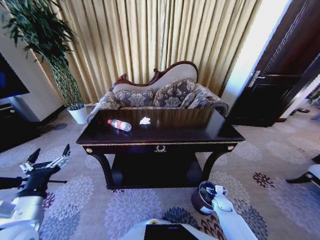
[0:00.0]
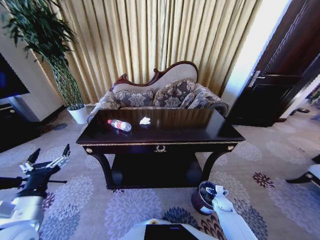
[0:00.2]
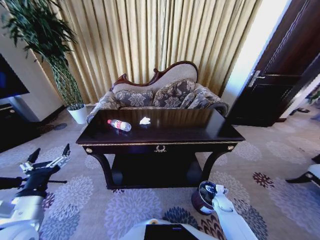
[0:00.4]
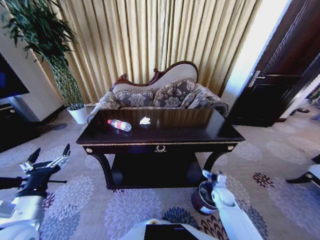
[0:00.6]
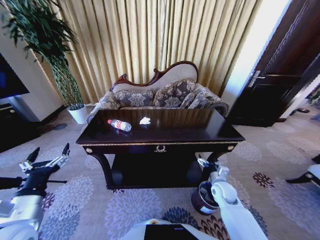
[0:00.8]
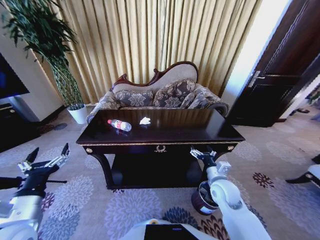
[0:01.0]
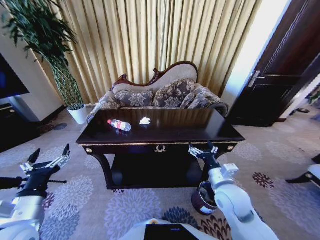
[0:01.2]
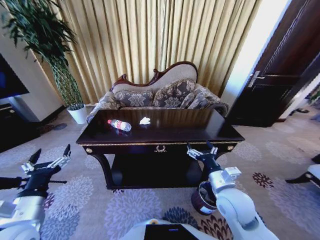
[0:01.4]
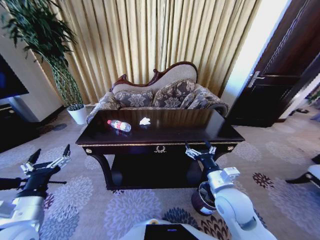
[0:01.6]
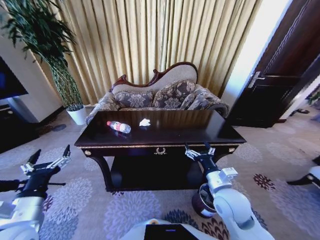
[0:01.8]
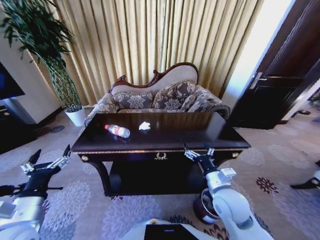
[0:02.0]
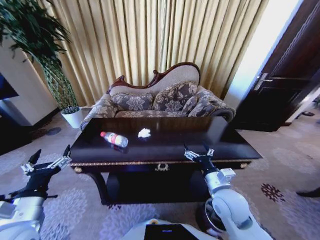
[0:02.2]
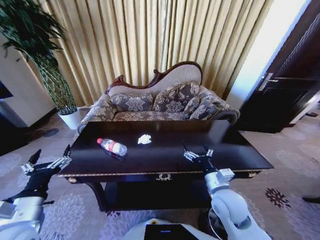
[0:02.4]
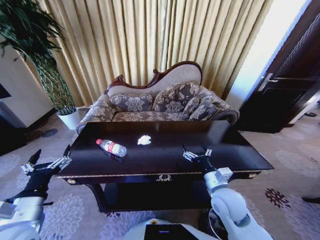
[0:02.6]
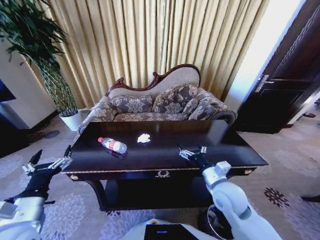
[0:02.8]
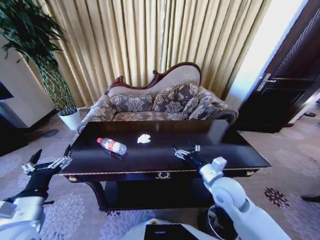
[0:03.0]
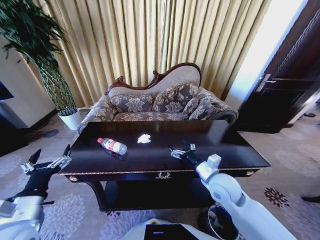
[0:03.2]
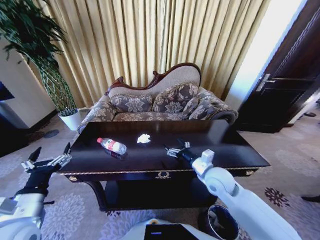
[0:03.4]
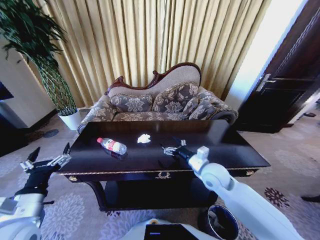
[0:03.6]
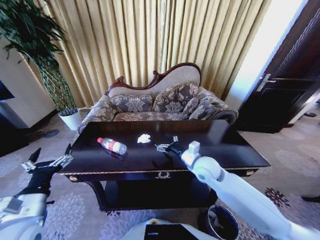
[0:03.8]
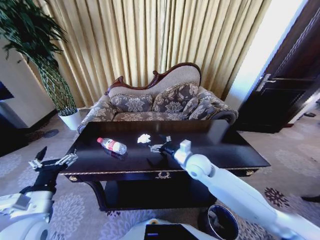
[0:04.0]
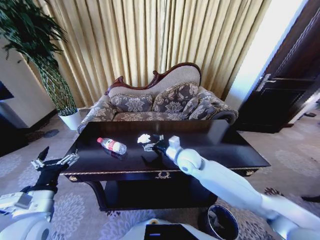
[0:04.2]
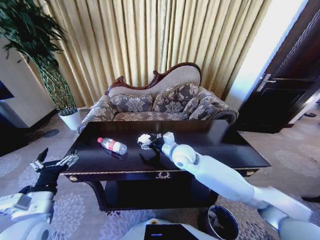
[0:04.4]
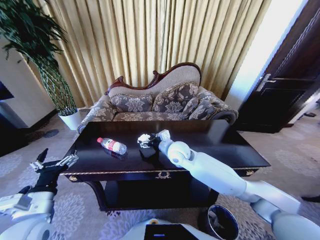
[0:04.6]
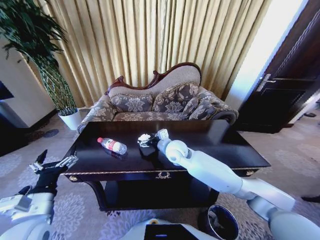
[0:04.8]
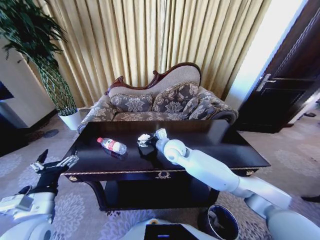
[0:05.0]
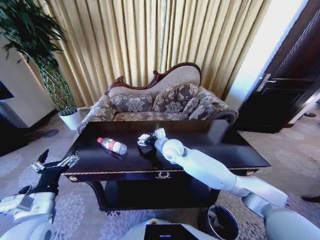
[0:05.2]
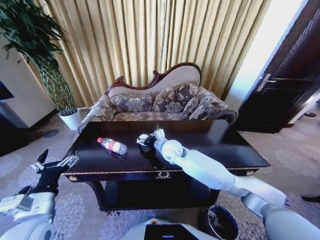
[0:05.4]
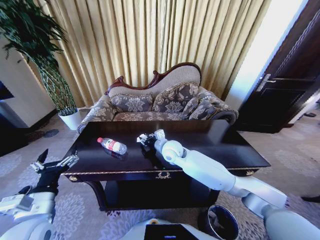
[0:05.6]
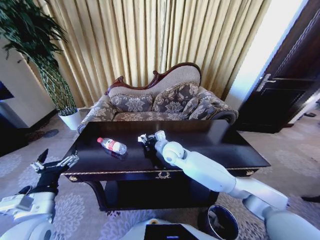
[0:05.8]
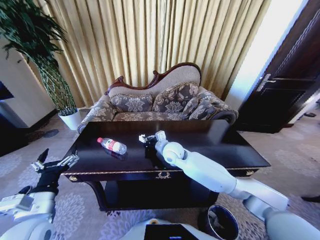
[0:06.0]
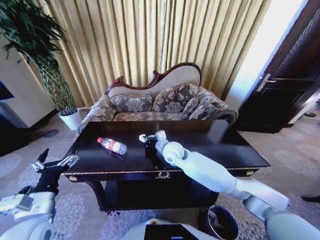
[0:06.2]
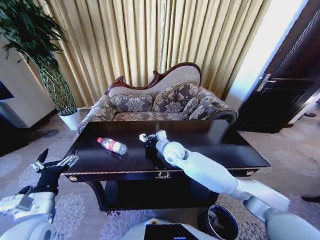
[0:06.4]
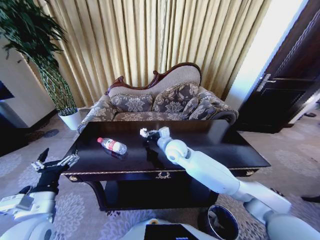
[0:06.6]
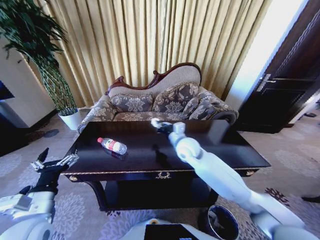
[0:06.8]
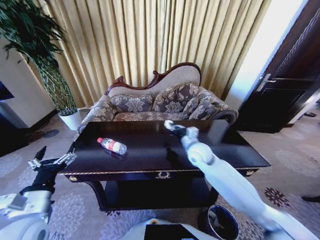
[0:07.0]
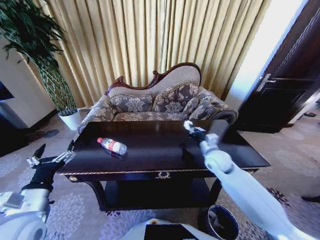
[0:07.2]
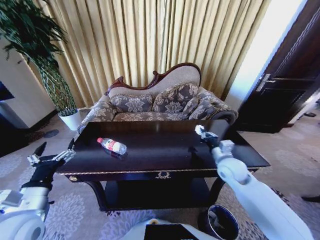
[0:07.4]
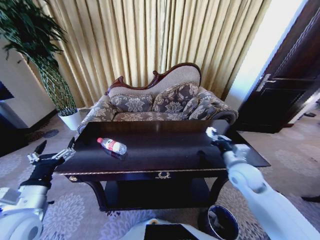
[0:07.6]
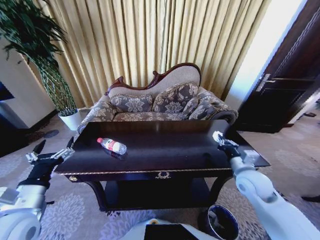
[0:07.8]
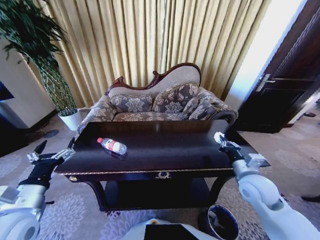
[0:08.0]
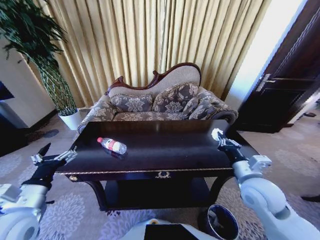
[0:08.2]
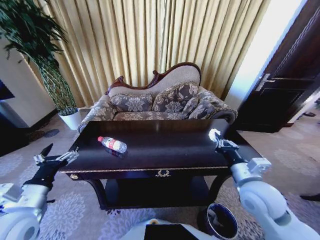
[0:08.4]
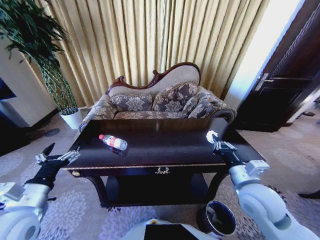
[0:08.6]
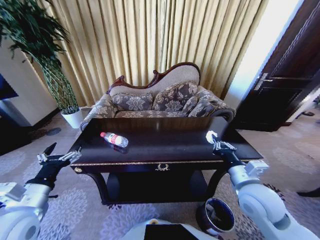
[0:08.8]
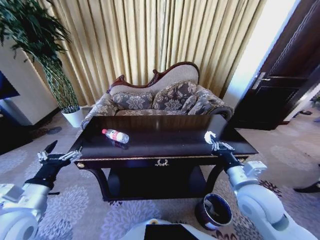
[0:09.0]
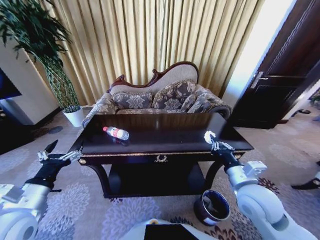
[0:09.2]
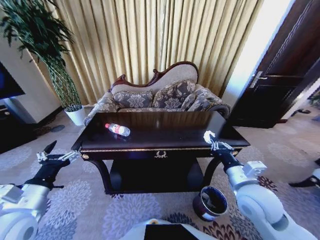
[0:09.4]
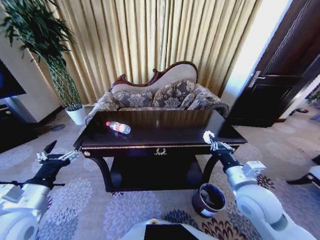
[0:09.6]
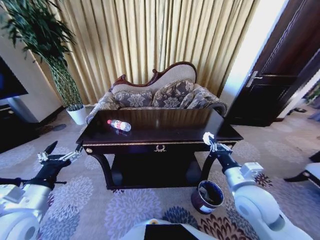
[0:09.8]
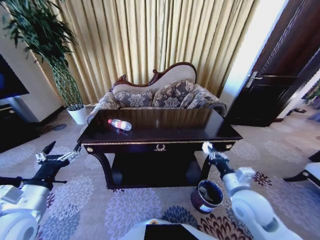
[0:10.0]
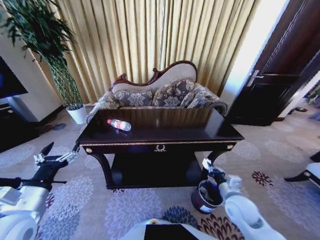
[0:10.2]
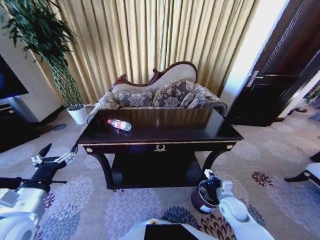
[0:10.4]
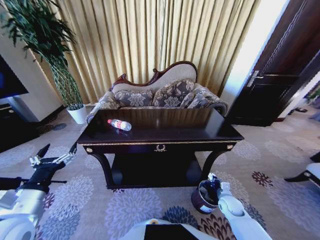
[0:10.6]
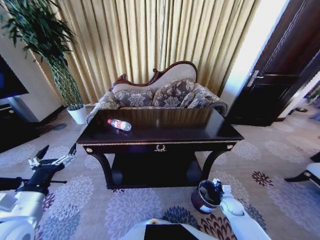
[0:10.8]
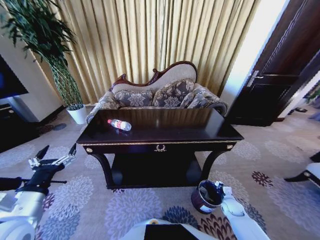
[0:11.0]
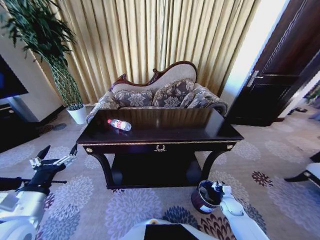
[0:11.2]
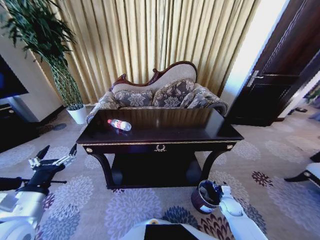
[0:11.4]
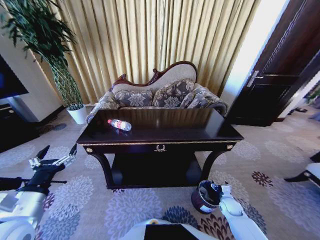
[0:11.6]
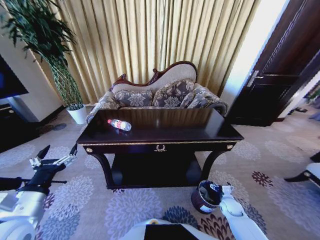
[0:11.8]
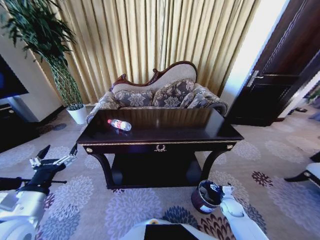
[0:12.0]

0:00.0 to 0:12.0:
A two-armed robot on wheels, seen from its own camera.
Task of the whole recording: Move to the front of the table and place the trash on the table into the trash bin.
0:00.0 to 0:01.6: The right gripper shifts roughly 35 cm upward and to the left.
0:03.0 to 0:04.4: The right gripper moves forward and to the left, some 20 cm.
0:04.4 to 0:06.0: The right gripper changes place by approximately 5 cm, and closes up.
0:06.0 to 0:07.6: The right gripper shifts some 30 cm to the right and backward.
0:07.6 to 0:09.0: The right gripper goes roughly 10 cm backward.
0:09.0 to 0:10.4: The right gripper heads downward, covering roughly 25 cm.
0:10.4 to 0:12.0: The right gripper goes roughly 10 cm downward and to the right, and opens up.

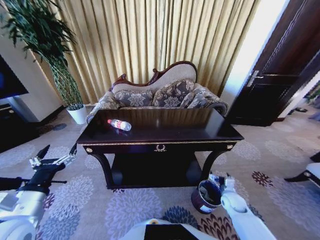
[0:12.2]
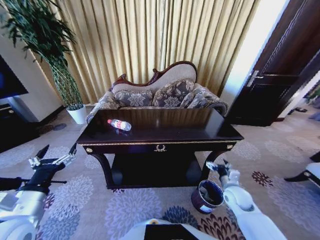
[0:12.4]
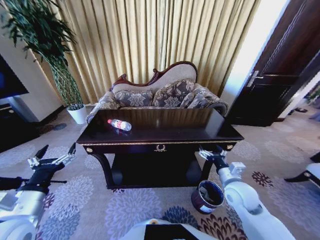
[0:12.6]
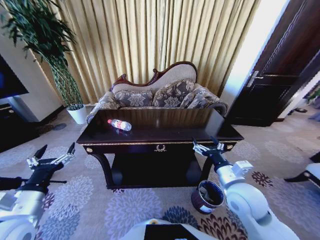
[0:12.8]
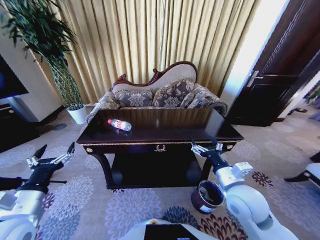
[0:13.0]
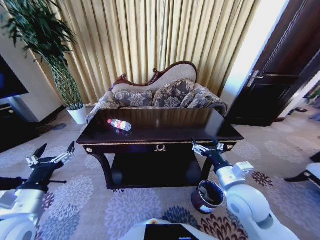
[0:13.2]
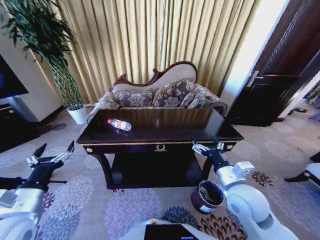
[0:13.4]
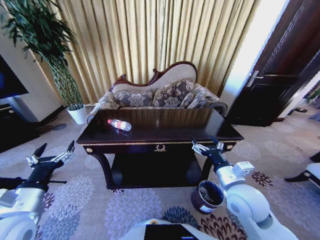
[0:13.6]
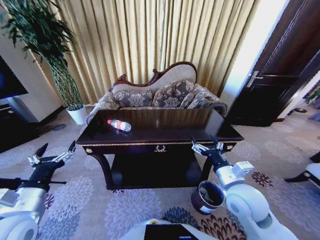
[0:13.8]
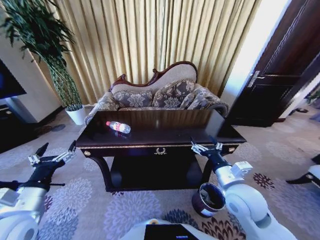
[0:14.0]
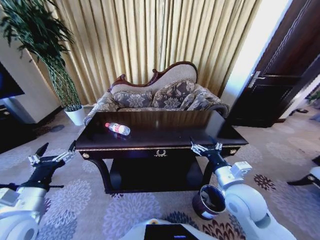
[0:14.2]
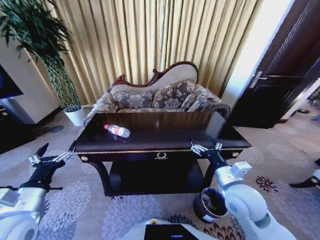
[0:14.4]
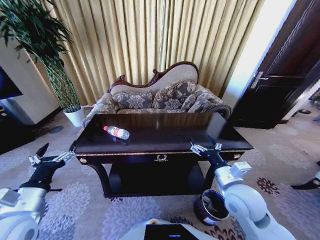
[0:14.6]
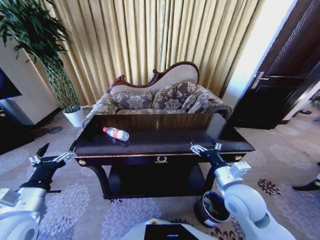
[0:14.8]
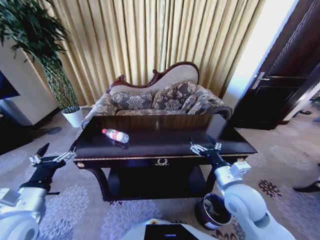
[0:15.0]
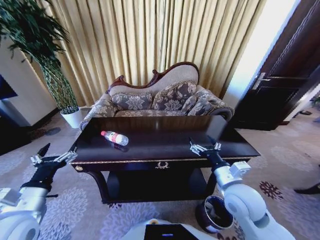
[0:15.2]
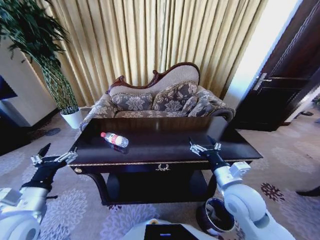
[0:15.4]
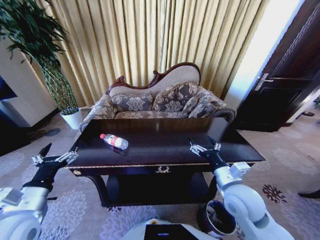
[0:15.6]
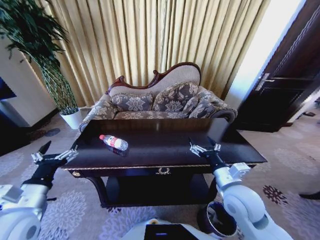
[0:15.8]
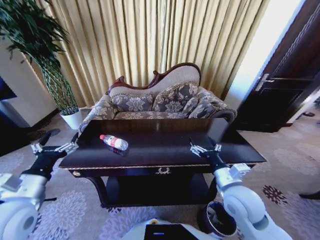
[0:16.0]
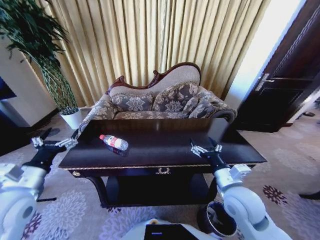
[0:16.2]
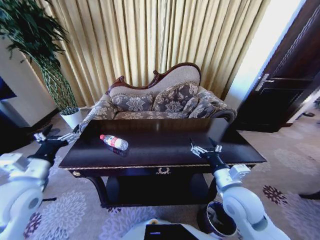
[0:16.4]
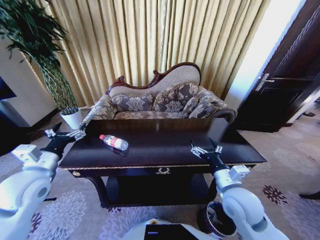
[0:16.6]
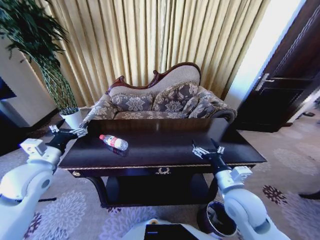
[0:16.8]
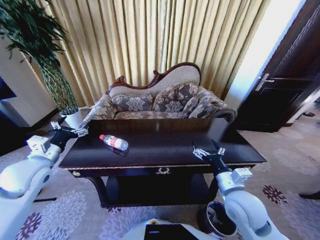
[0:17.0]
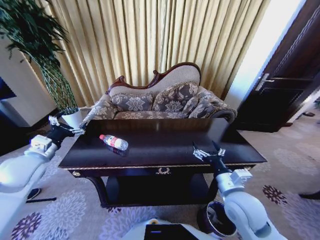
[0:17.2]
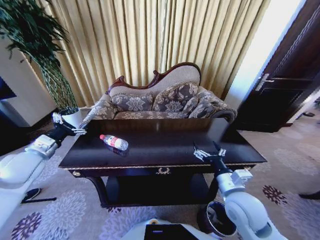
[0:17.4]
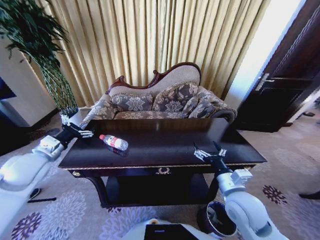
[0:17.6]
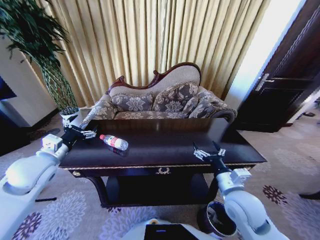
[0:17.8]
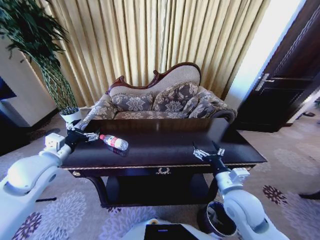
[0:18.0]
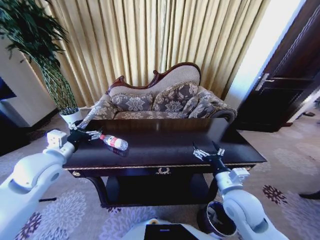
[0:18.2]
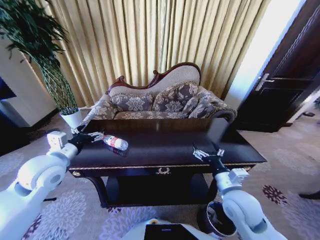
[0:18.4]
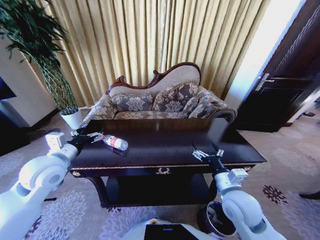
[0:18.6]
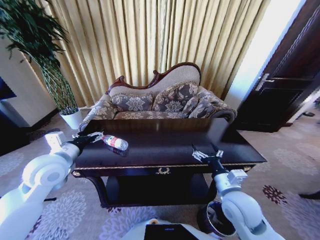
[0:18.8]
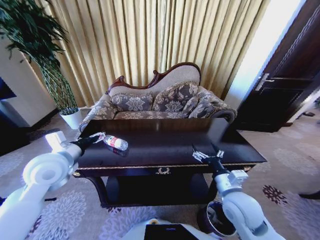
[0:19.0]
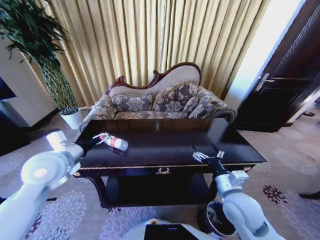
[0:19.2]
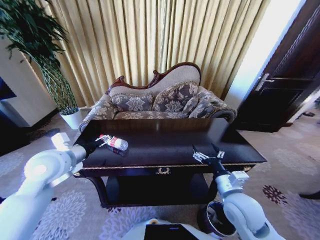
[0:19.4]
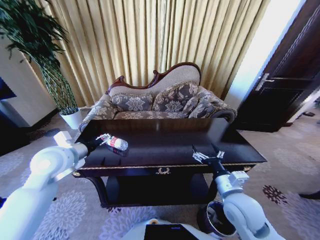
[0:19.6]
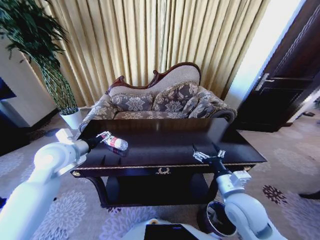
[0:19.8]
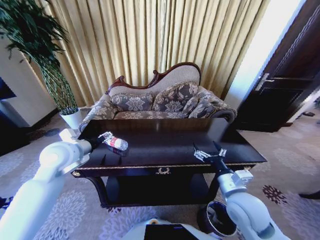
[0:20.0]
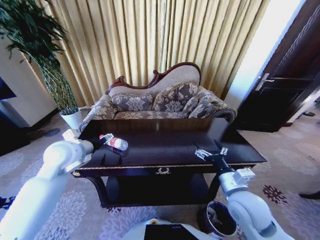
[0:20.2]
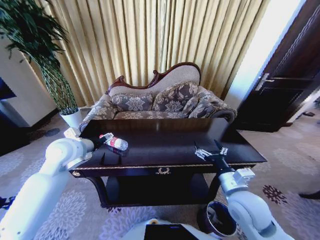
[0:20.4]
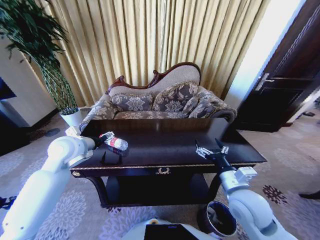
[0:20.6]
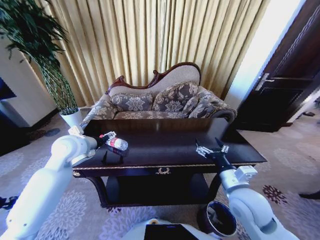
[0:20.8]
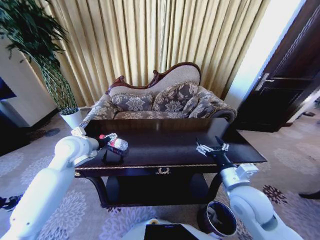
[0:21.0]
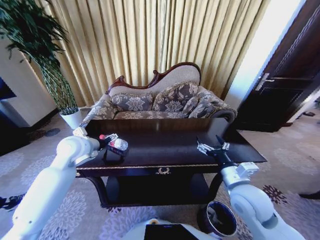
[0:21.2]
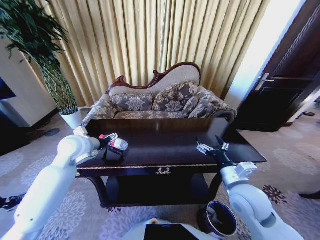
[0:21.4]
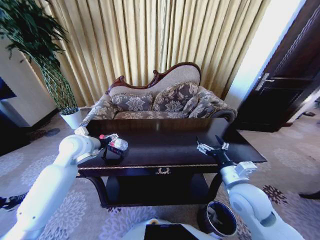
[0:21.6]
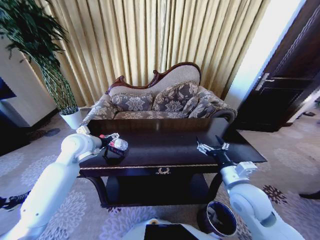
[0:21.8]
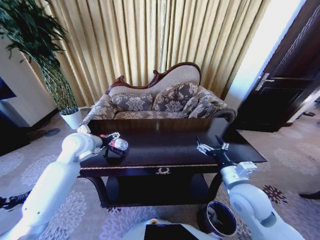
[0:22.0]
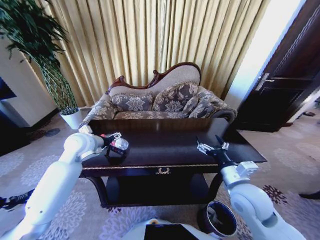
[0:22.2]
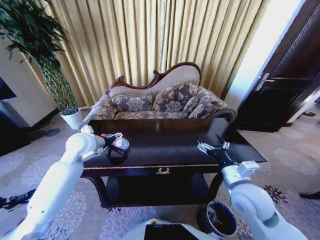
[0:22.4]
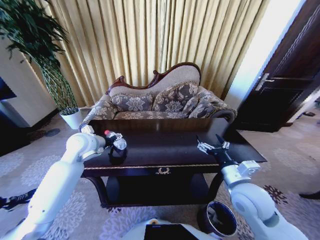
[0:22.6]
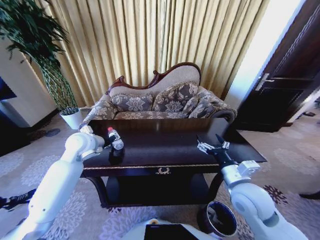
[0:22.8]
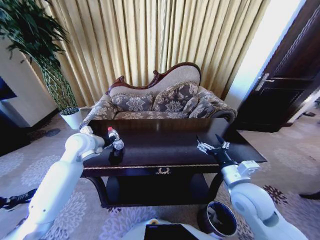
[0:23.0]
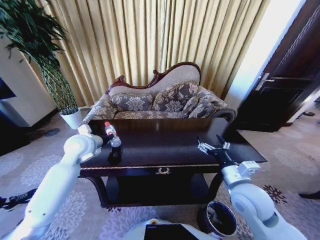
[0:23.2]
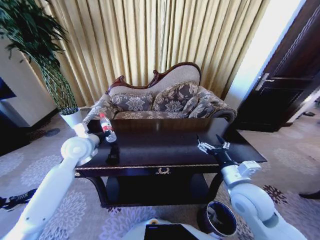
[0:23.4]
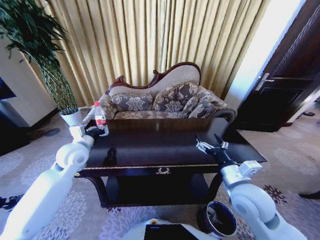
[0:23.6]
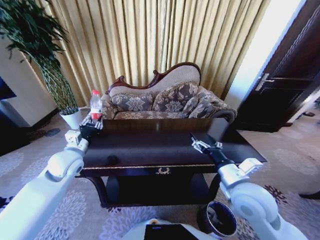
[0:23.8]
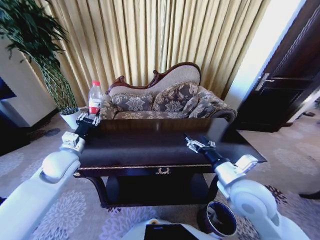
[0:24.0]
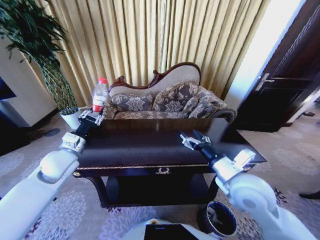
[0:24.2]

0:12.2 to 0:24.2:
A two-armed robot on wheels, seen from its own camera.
Task of the whole recording: Move to the front of the table and place the trash on the table into the trash bin.
0:12.2 to 0:13.8: The right gripper heads upward and to the left, covering approximately 30 cm.
0:15.2 to 0:16.6: The left gripper travels forward by approximately 10 cm.
0:16.6 to 0:18.2: The left gripper reaches approximately 5 cm to the left, then returns.
0:19.8 to 0:21.2: The left gripper moves roughly 5 cm.
0:21.2 to 0:22.6: The grippers make only small movements.
0:22.6 to 0:24.2: The left gripper is displaced backward by approximately 5 cm, and closes up; the right gripper shifts by some 5 cm.
